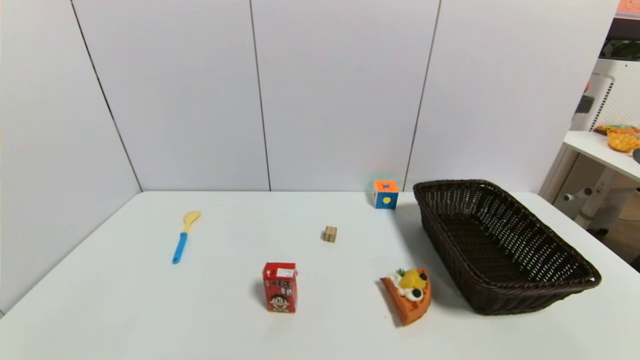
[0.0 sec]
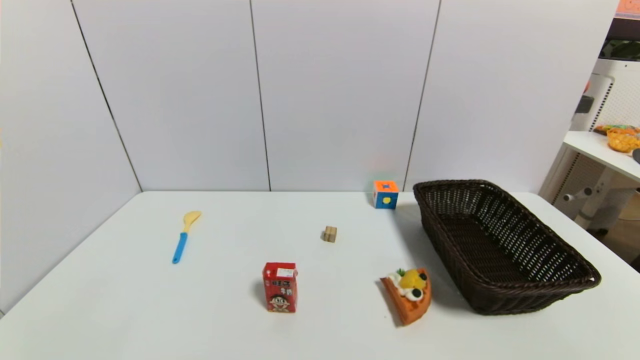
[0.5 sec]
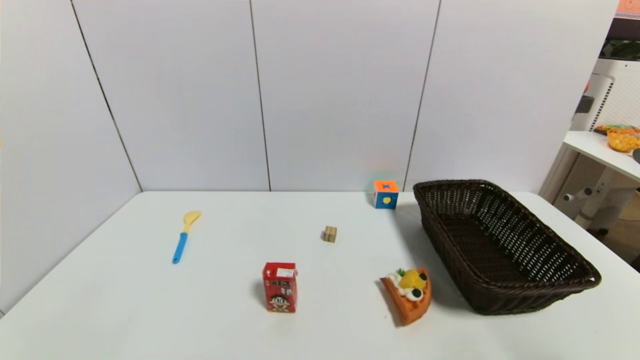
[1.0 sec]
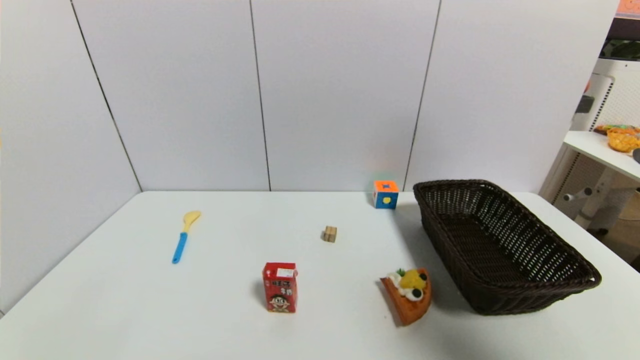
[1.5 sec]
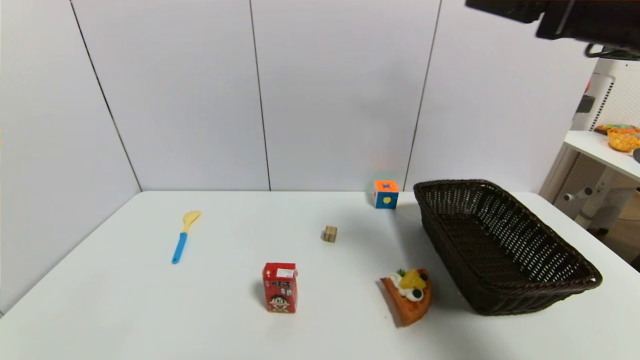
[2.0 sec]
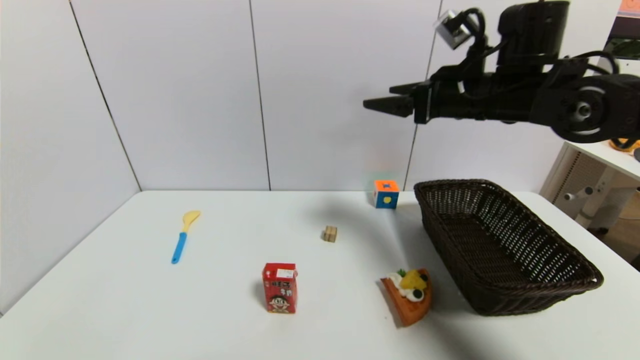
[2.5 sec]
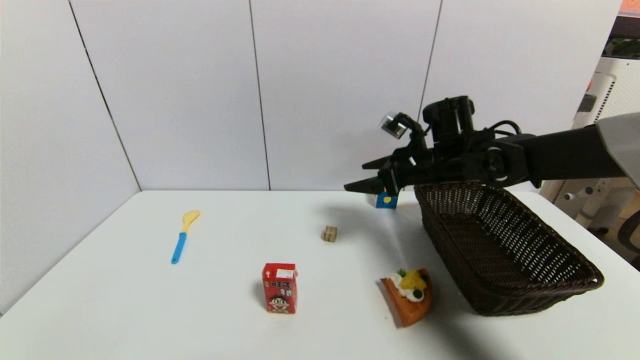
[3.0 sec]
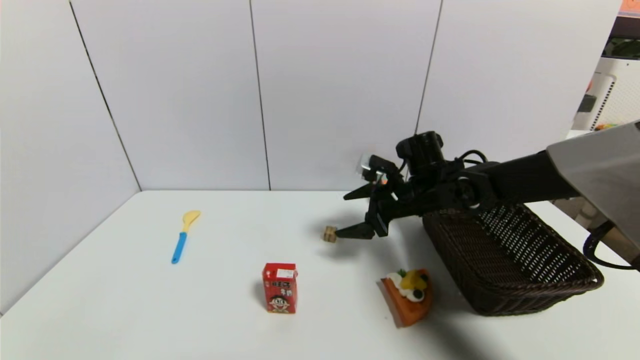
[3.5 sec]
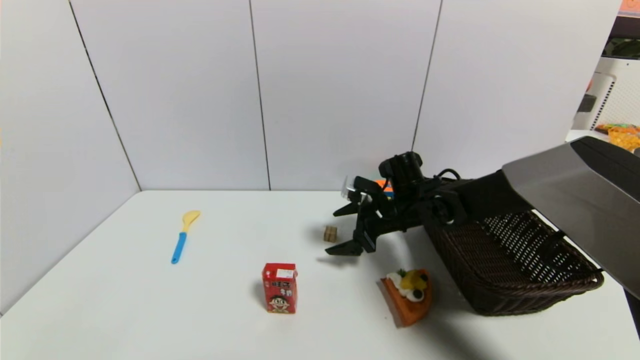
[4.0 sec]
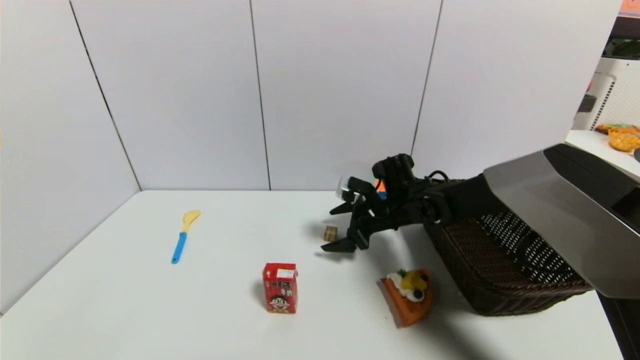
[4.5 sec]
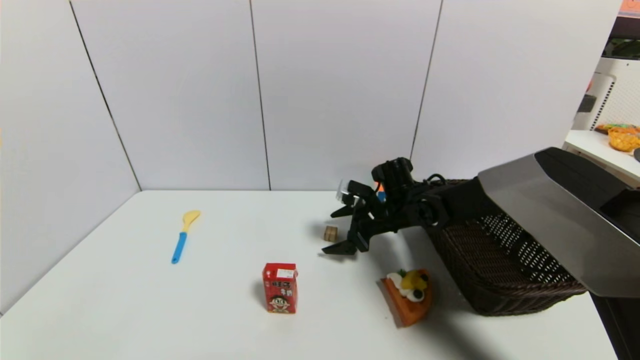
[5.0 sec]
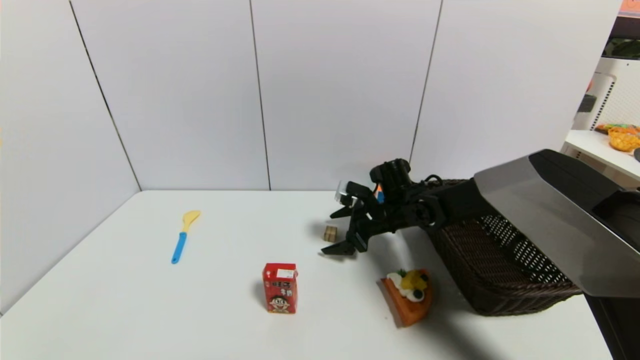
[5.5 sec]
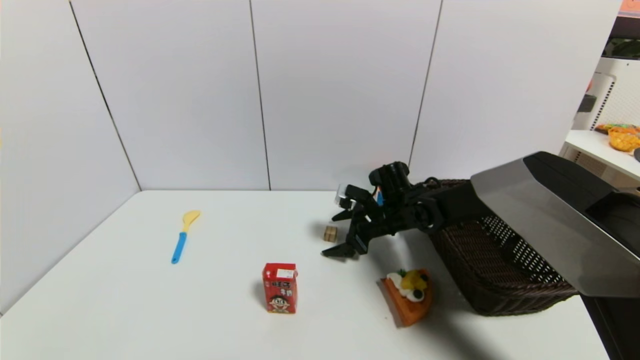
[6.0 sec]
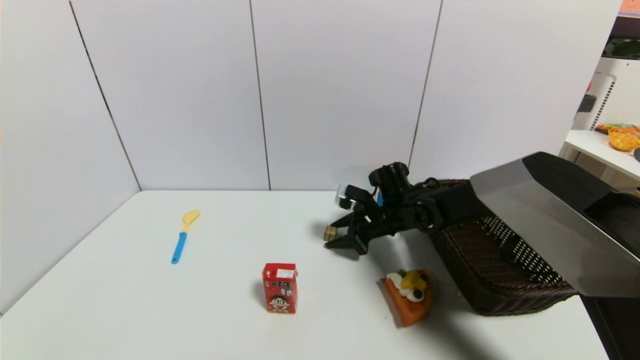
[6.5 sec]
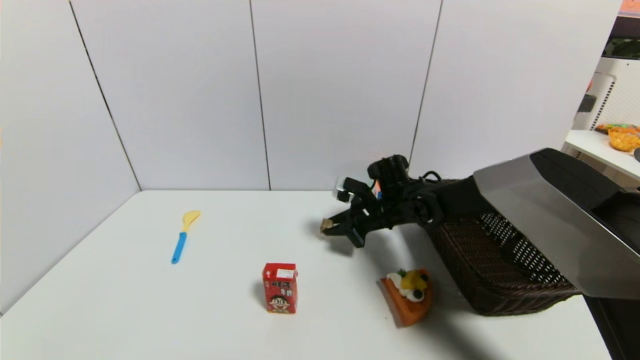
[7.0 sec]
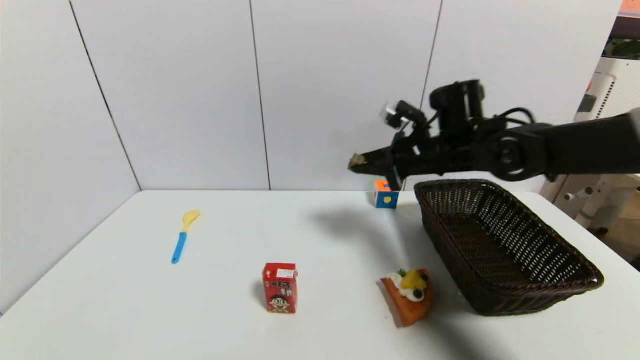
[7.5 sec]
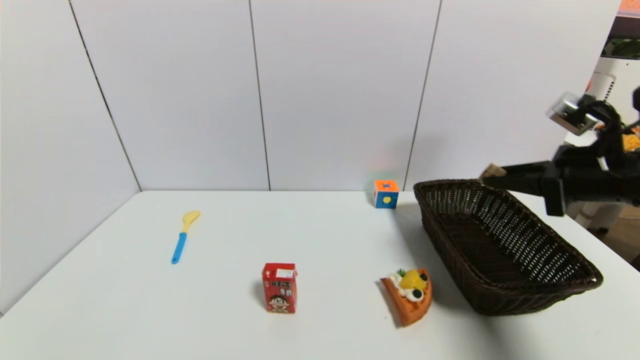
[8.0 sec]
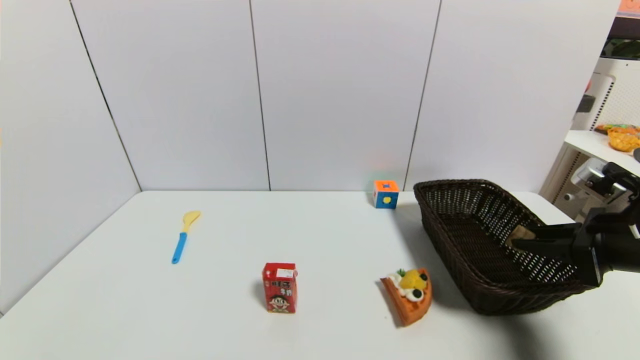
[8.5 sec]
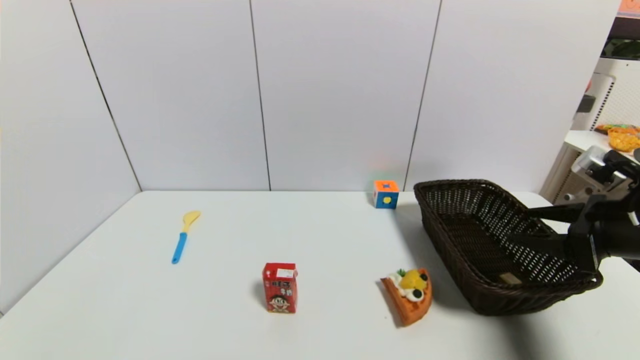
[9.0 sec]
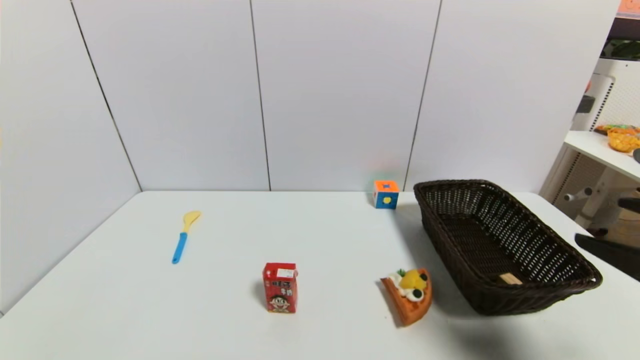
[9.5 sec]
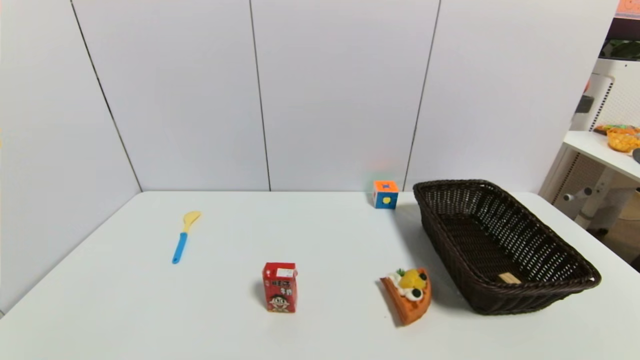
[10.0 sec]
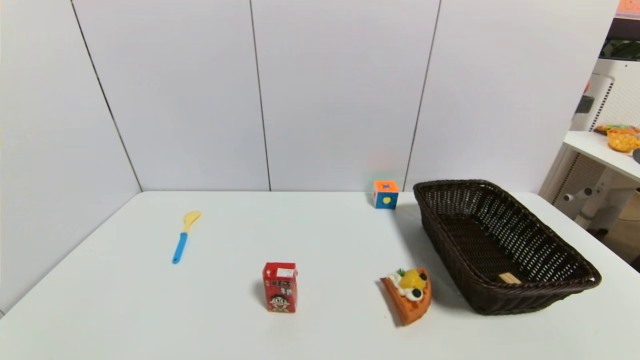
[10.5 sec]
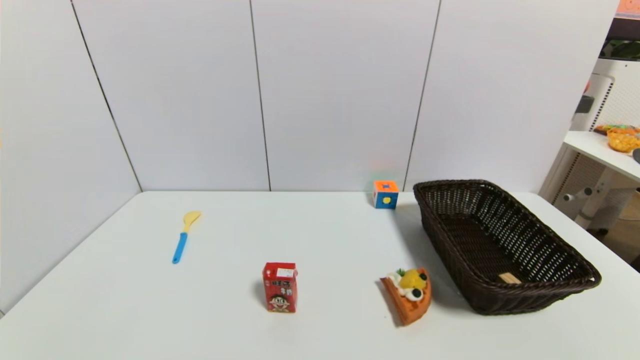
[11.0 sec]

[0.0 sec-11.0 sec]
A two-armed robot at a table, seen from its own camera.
Task of the whole recording: use a gripper to pick the target object and place on the brown basket.
Step, 0.0 sec to 6.5 sec: Grasp the square wooden block with the right gripper.
Step, 7.0 sec to 9.0 sec: Place the square wooden block into the basket with the right gripper.
0.0 sec to 2.0 sec: The right gripper travels upward and forward by about 40 cm.
2.0 sec to 3.5 sec: The right gripper moves downward, to the left and forward, roughly 30 cm.
3.5 sec to 5.5 sec: The right gripper travels downward by roughly 5 cm.
5.5 sec to 7.5 sec: The right gripper heads upward and to the right, covering about 15 cm, and closes up.
7.5 sec to 9.0 sec: The right gripper is displaced to the right and backward by about 25 cm, and opens.
9.0 sec to 11.0 sec: The right gripper goes approximately 25 cm backward and downward.
